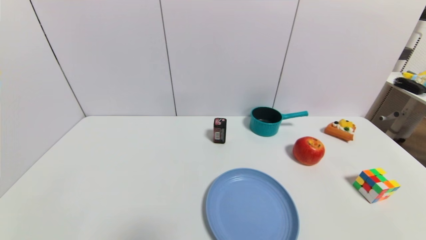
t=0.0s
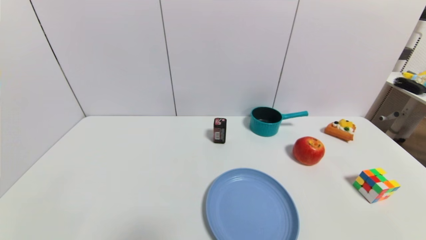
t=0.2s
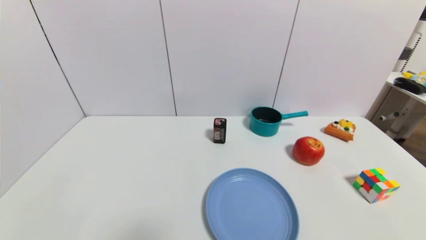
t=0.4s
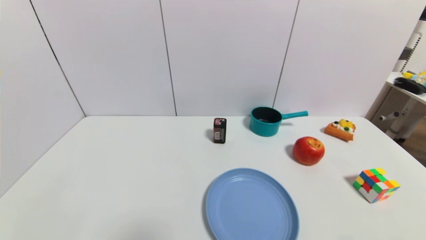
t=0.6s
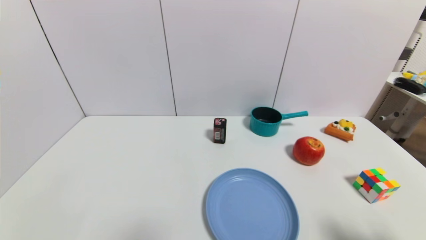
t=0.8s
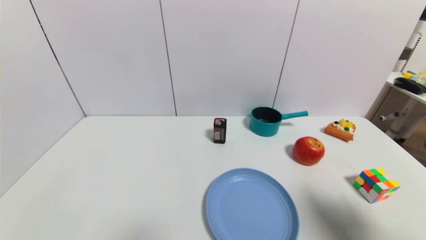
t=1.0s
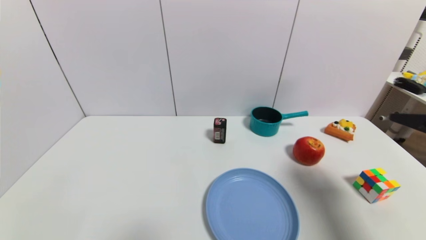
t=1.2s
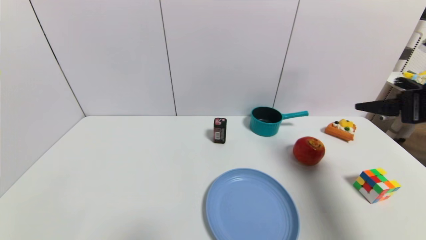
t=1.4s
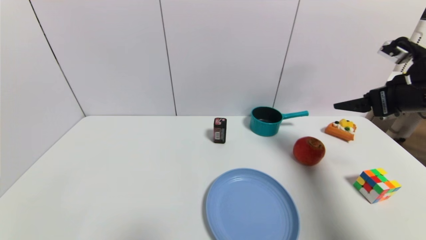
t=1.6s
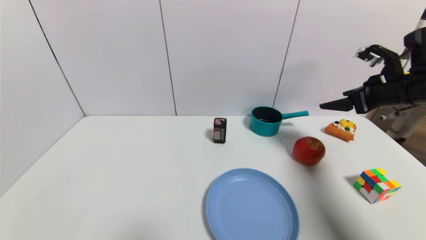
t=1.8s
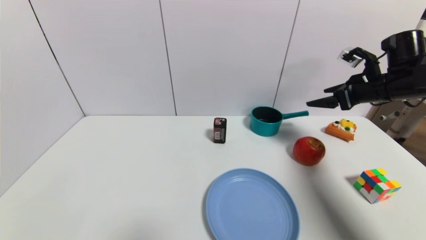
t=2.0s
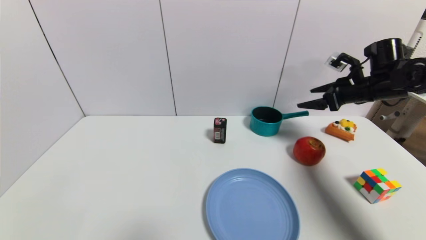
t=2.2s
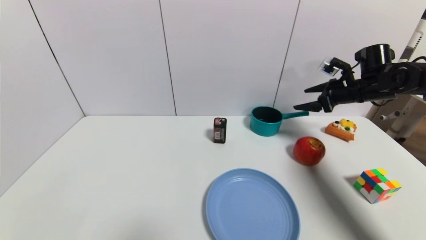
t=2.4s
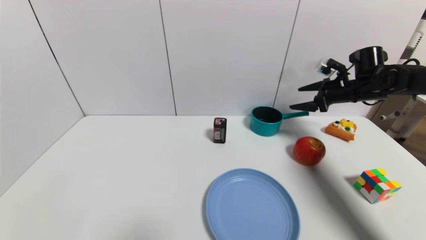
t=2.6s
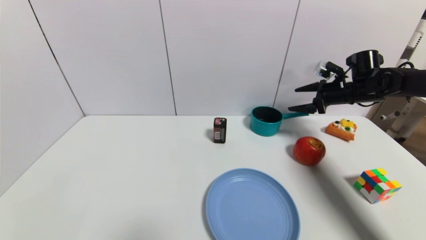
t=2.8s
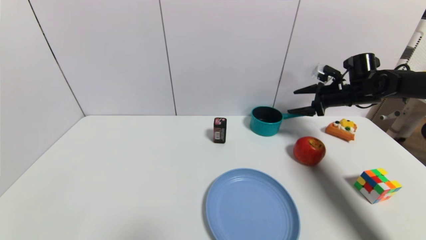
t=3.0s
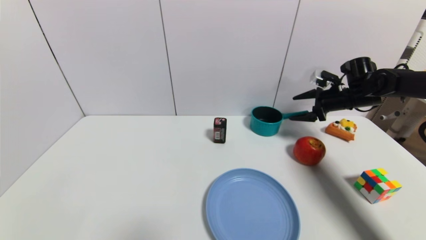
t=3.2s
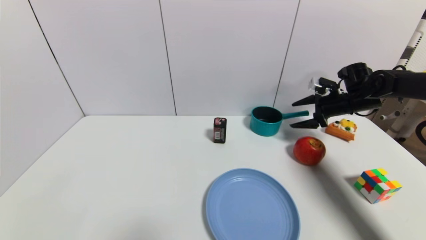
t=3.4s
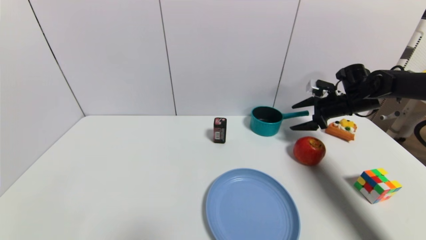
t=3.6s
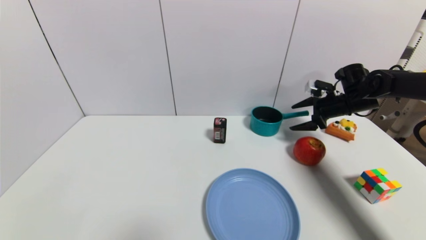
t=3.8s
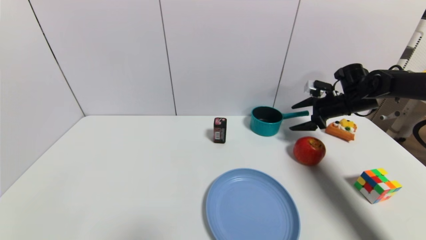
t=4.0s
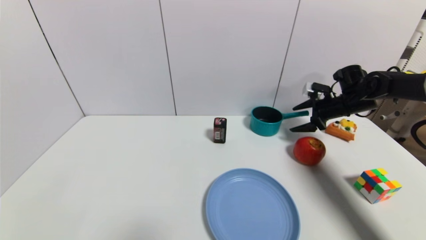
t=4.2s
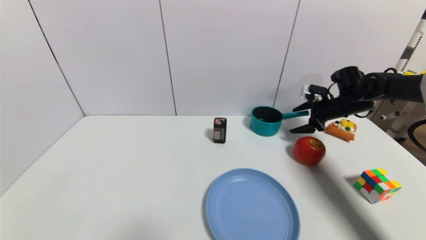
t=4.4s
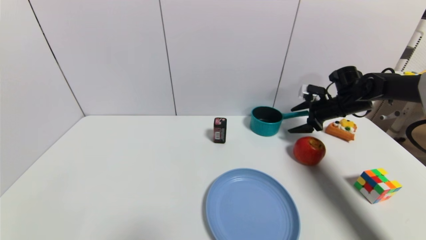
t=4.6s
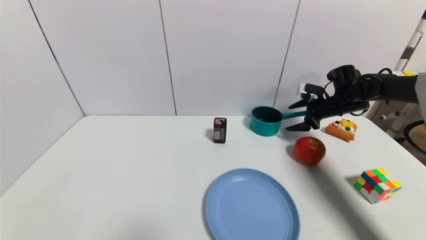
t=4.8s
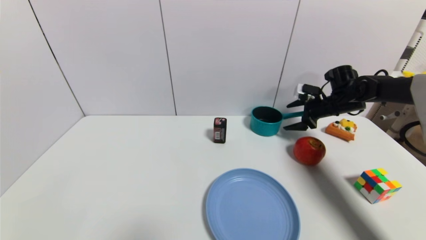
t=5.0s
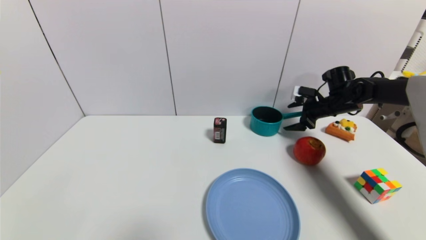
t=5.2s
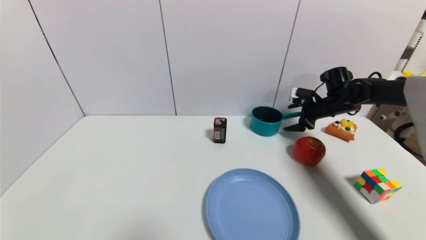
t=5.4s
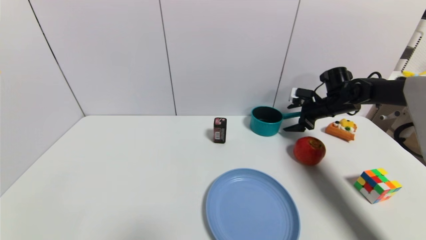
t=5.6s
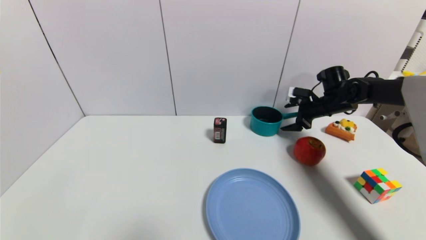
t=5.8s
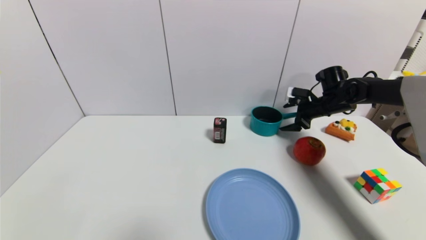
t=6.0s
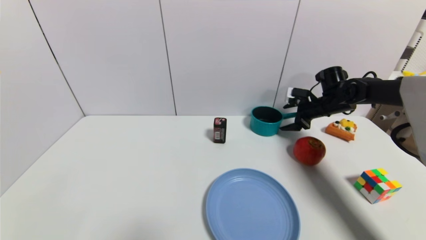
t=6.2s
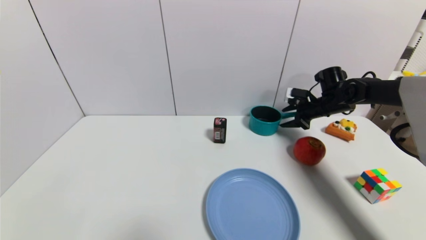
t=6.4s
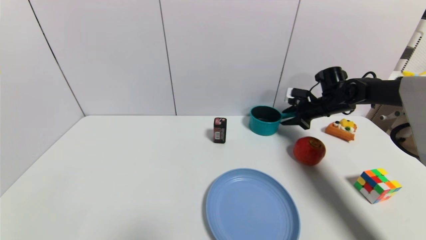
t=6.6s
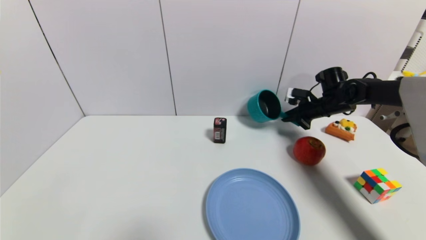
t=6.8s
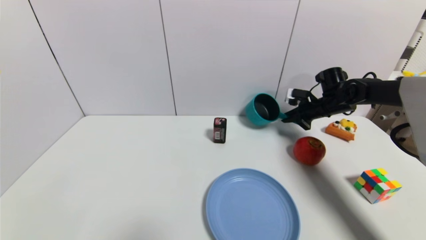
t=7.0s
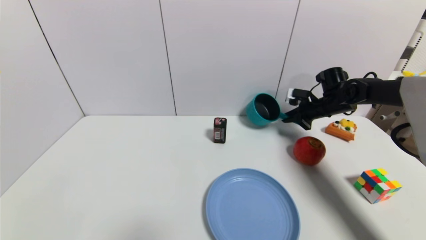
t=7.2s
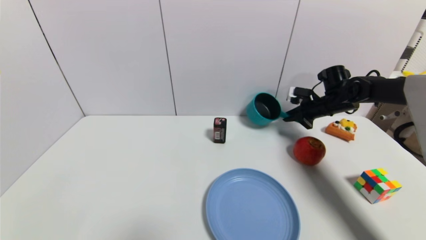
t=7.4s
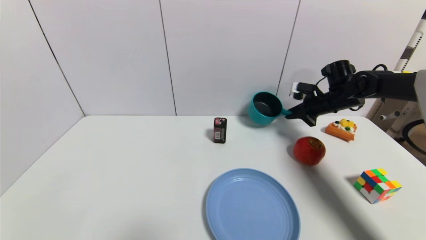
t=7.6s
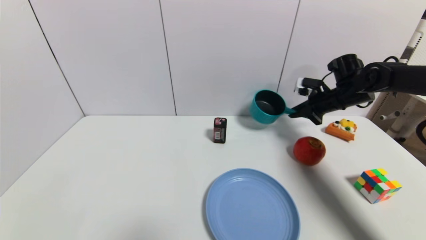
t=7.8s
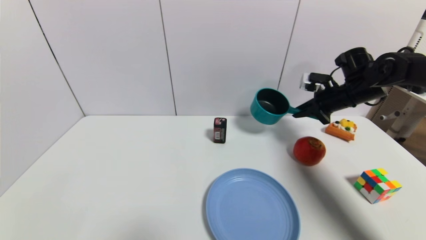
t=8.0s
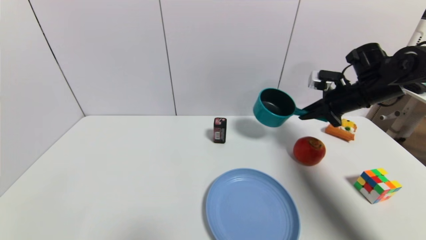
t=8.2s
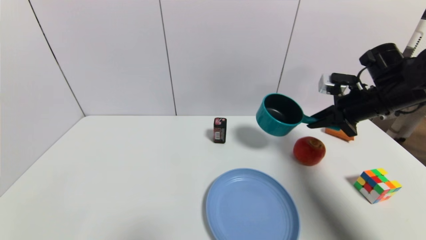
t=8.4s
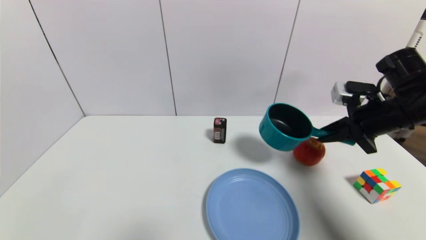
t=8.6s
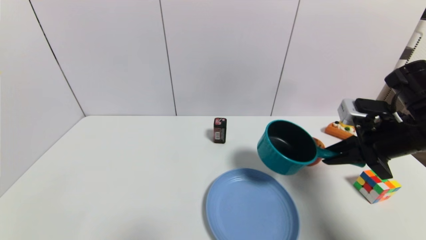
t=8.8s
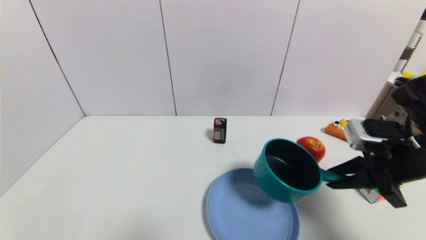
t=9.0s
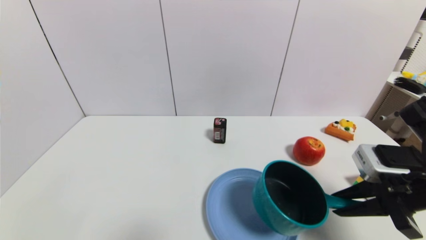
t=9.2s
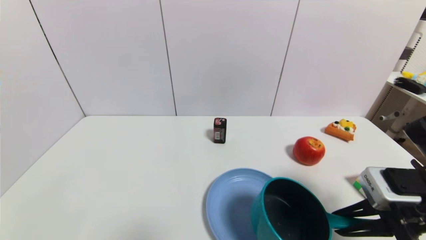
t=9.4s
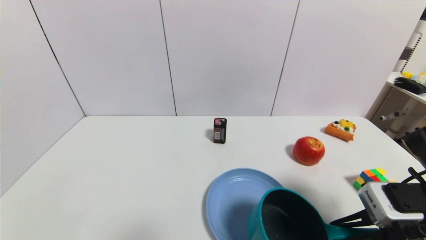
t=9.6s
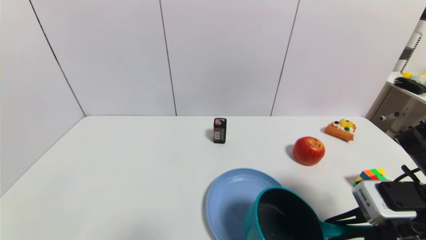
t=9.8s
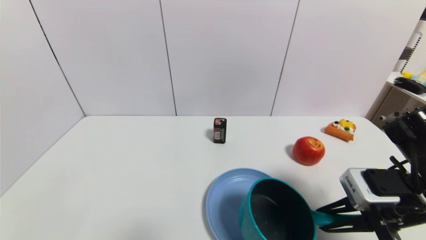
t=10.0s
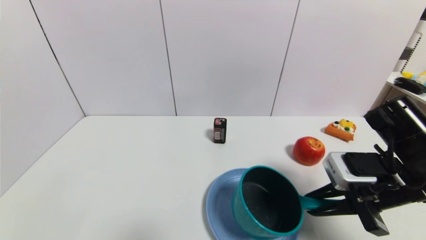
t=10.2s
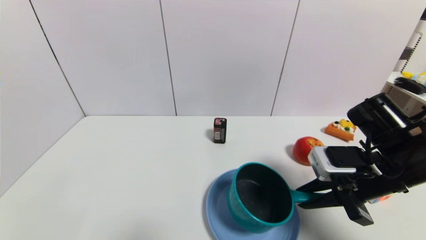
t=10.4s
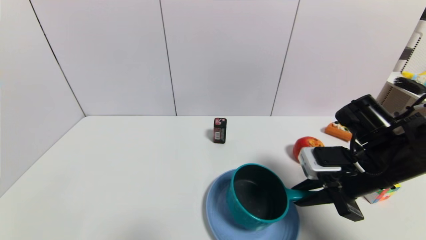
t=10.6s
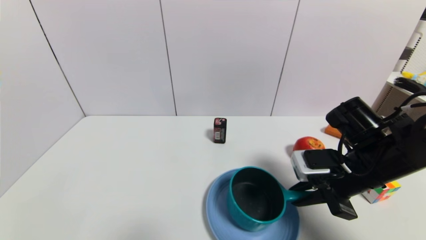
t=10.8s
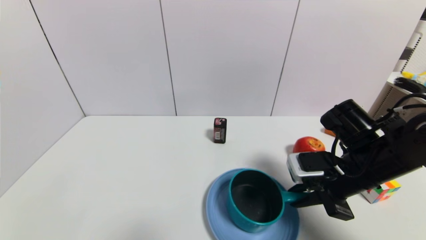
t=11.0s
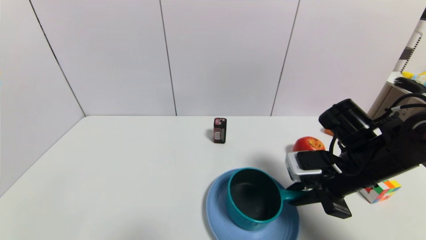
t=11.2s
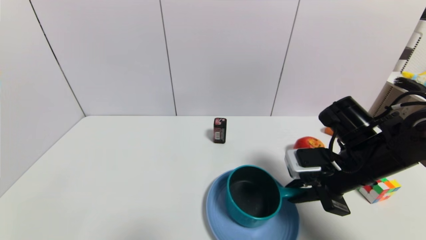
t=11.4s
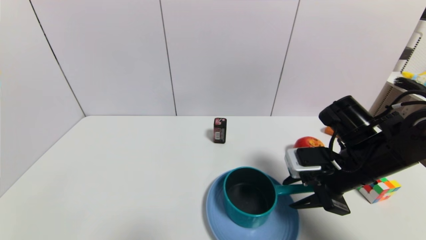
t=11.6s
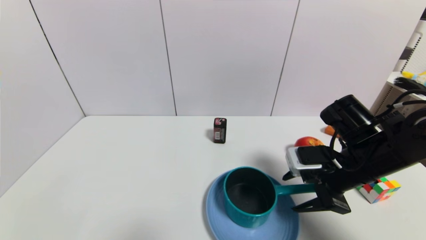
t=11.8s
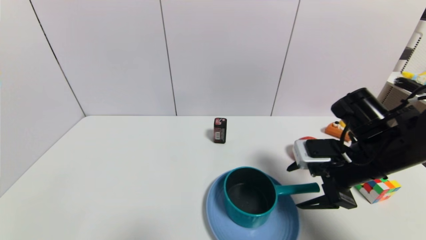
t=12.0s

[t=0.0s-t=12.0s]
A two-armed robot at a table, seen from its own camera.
Task of the whole recording: use a gripper to pick the target object and place on the blue plate.
Step, t=0.0s to t=7.0s: Grasp the blue pot with the right gripper.
t=0.0s to t=1.6s: The right gripper is displaced forward and upward by some 35 cm.
t=1.6s to t=3.0s: The right gripper is displaced forward and downward by approximately 20 cm.
t=3.0s to t=4.4s: The grippers stay close to where they were, moving slightly.
t=4.4s to t=6.0s: The grippers move only a little.
t=6.0s to t=7.6s: The right gripper closes up.
t=7.6s to t=9.0s: The right gripper shifts approximately 25 cm backward.
t=9.0s to t=10.4s: The right gripper changes place by roughly 5 cm.
t=10.4s to t=12.0s: The right gripper opens its fingers.

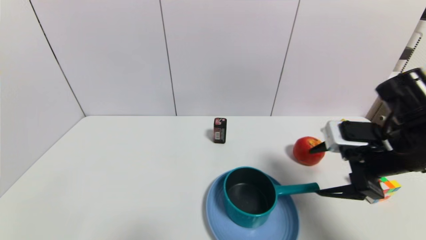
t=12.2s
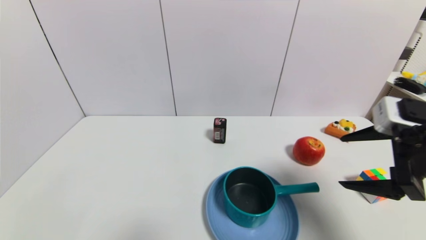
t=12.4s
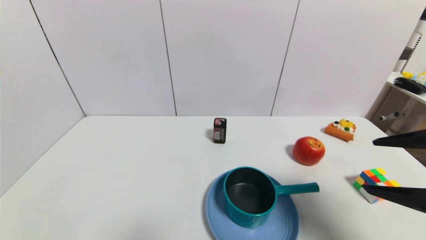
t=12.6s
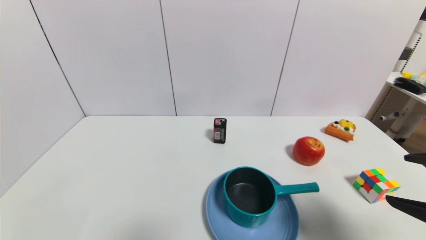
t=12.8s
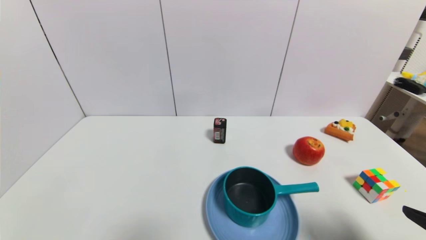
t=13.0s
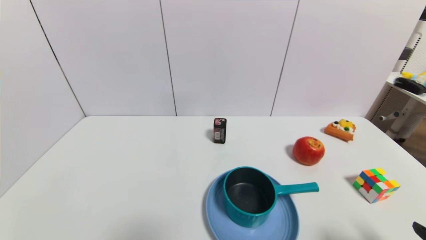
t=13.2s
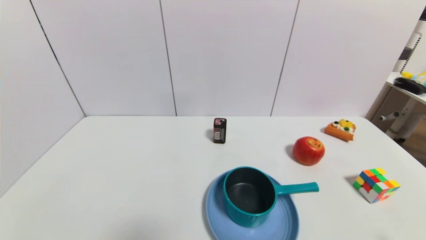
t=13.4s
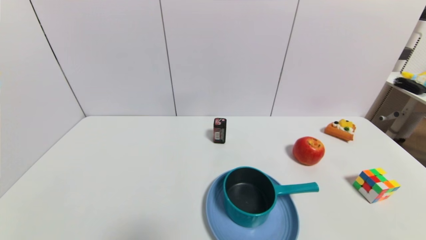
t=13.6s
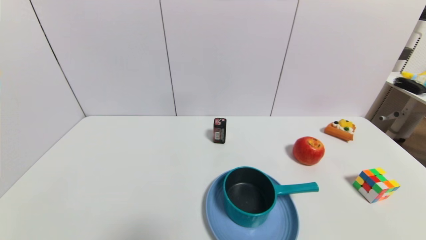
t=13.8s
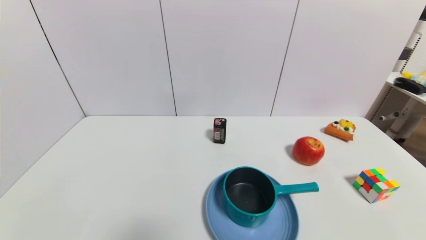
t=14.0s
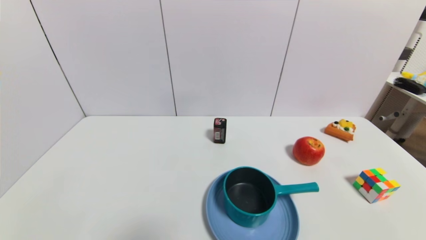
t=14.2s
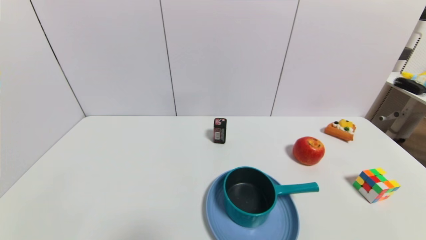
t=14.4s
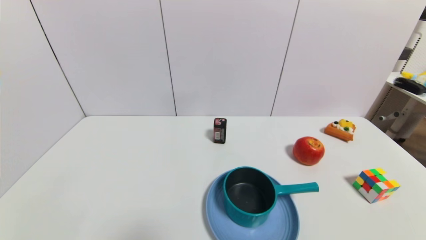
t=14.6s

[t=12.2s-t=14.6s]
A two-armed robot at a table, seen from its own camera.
Task of the whole recording: use a gripper to pick the target object and place on the blue plate.
t=12.2s to t=13.4s: The right gripper travels backward and downward by about 25 cm.

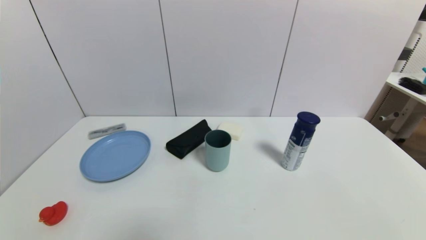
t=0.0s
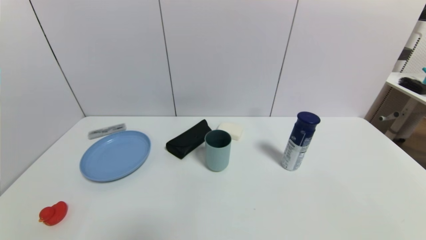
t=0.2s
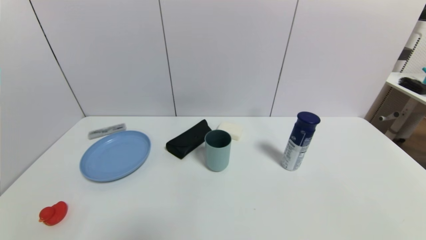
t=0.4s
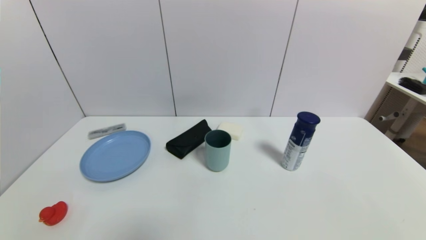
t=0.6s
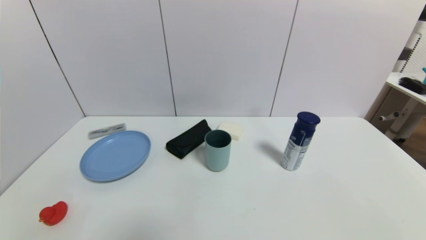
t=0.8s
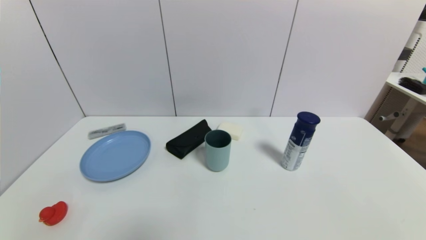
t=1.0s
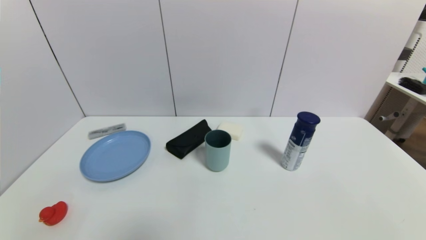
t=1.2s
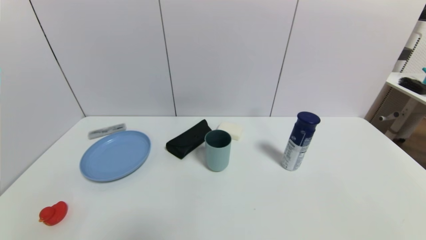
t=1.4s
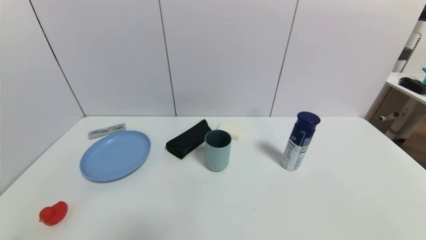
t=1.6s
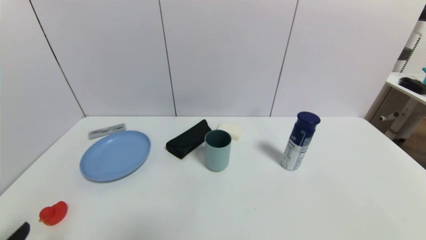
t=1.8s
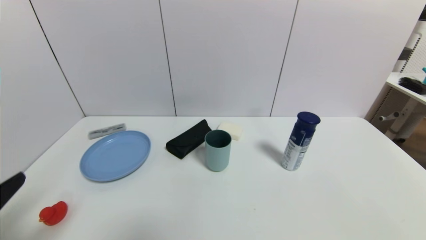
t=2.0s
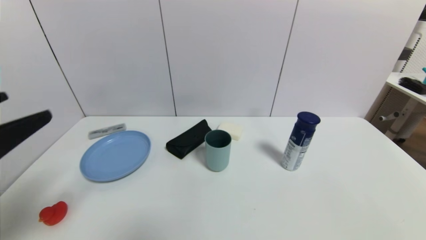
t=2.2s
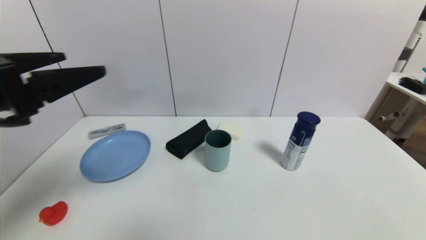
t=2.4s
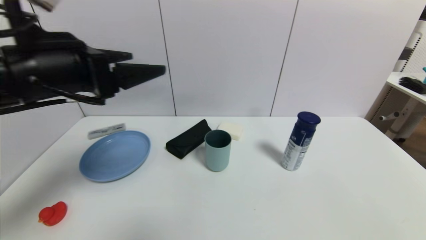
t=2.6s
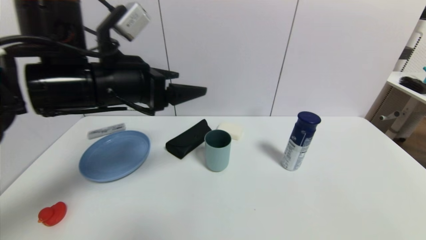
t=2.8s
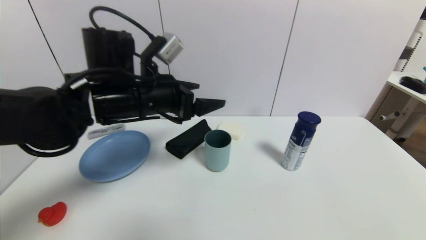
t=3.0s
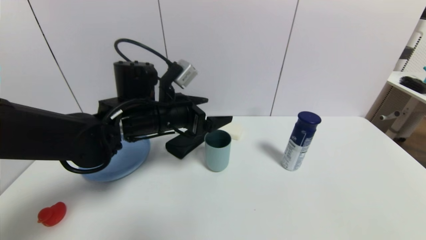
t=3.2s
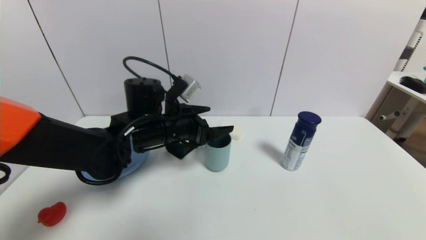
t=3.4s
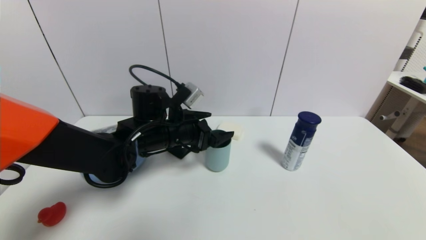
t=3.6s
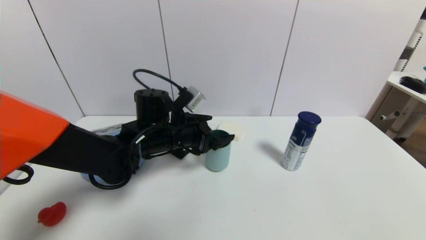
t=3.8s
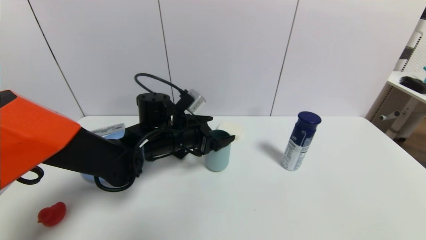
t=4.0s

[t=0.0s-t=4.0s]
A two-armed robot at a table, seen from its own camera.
Task of the whole recording: use a gripper to pick the target object and place on the blue plate.
t=0.0s to t=1.4s: Both grippers stay about where they are.
t=1.4s to t=2.6s: The left gripper moves upward and forward, some 35 cm.
t=2.6s to t=4.0s: The left gripper is displaced downward, forward and to the right by some 25 cm.
